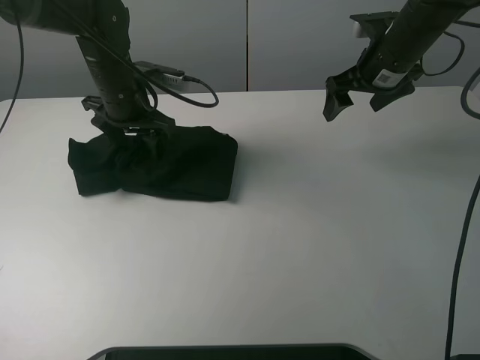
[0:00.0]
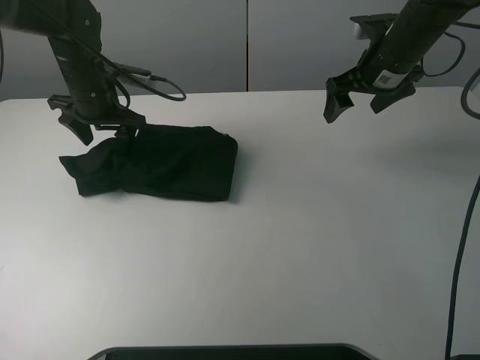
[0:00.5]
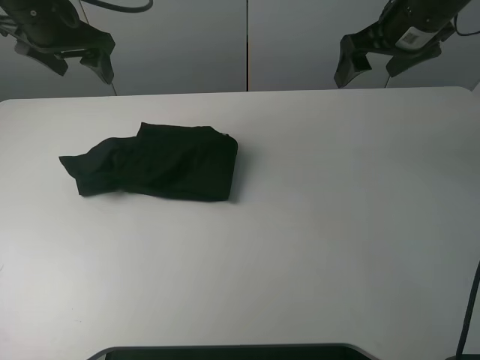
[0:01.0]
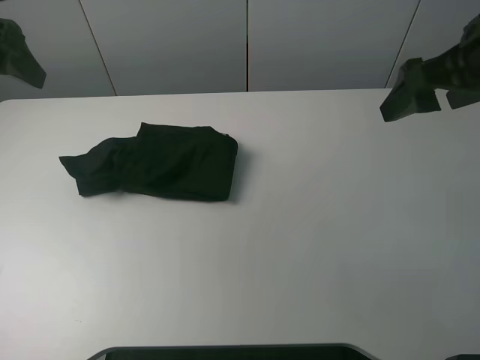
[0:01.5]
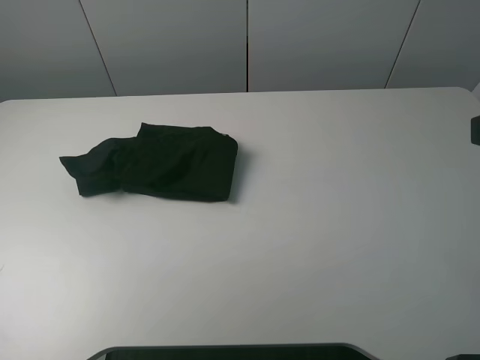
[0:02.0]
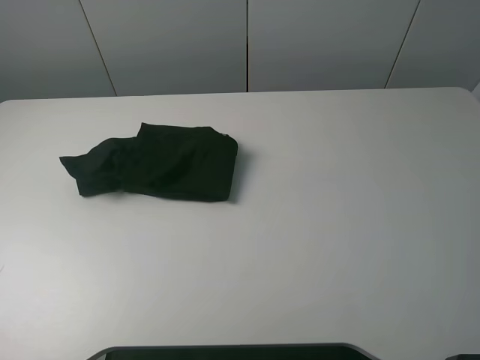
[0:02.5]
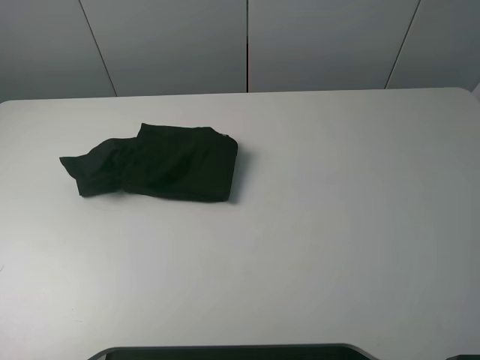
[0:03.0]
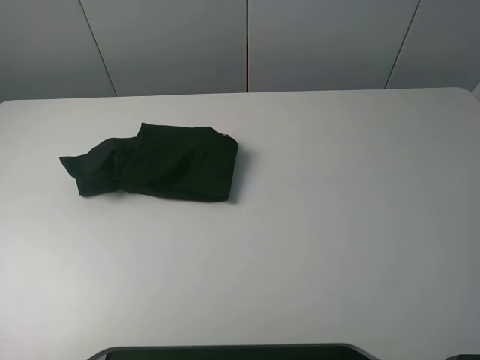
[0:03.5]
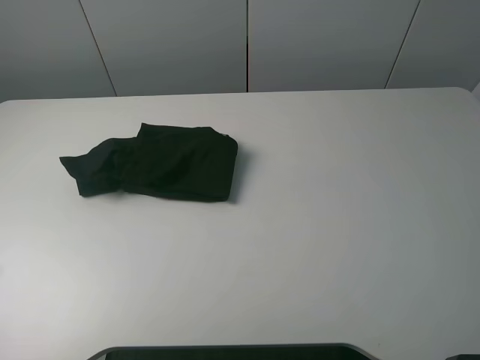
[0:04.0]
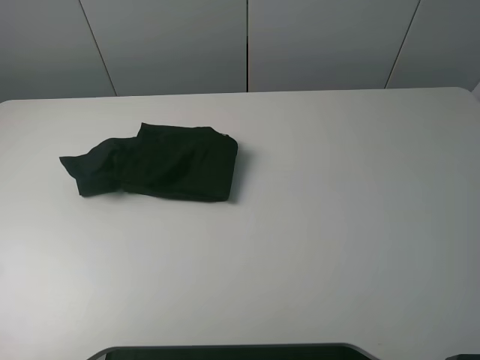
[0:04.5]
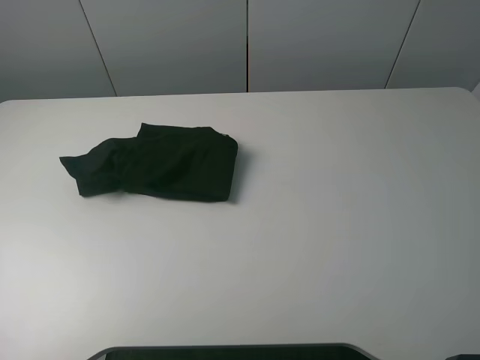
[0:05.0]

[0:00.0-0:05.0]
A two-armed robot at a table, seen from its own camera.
Task of the whole recording: fold the clothes on the table.
0:00.0 to 0:02.5: The left gripper moves backward, to the left and upward, some 50 cm; the right gripper is displaced backward by roughly 40 cm.
